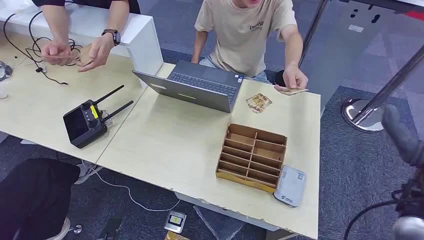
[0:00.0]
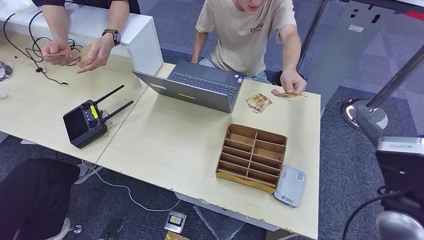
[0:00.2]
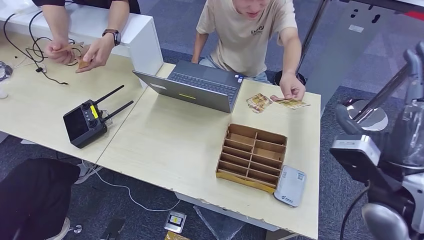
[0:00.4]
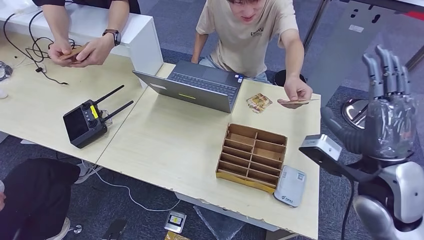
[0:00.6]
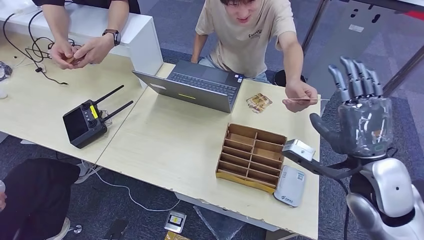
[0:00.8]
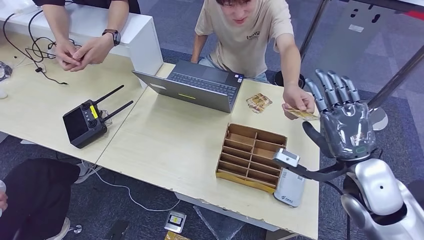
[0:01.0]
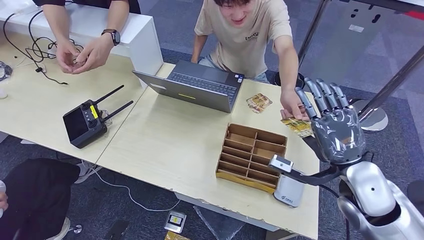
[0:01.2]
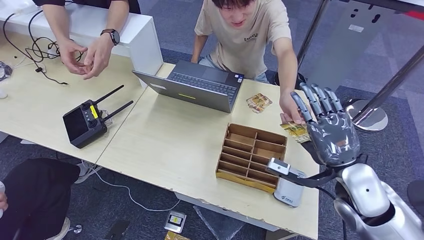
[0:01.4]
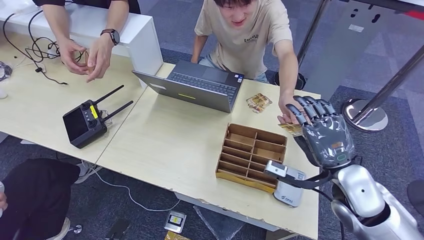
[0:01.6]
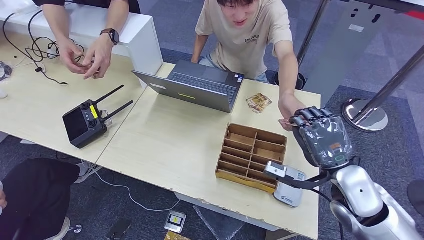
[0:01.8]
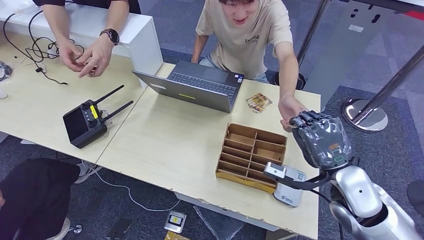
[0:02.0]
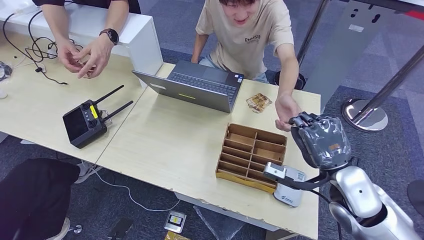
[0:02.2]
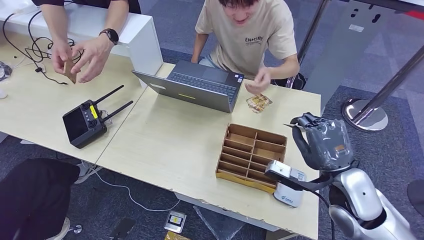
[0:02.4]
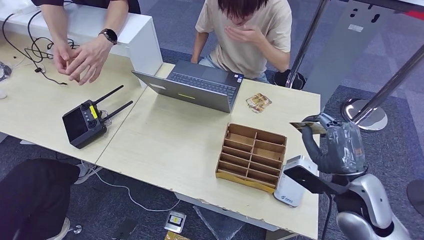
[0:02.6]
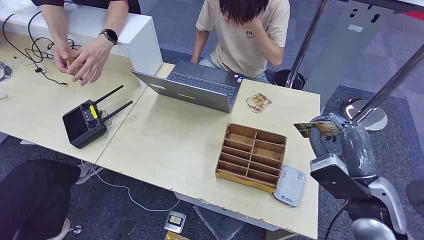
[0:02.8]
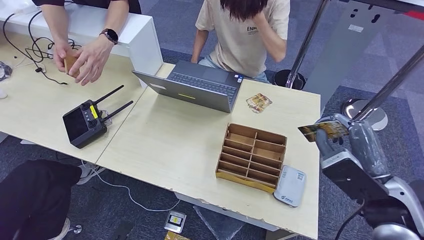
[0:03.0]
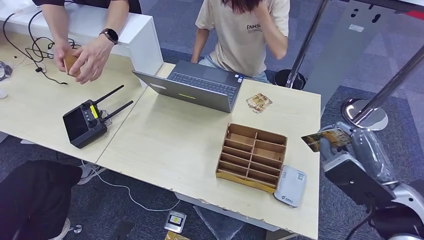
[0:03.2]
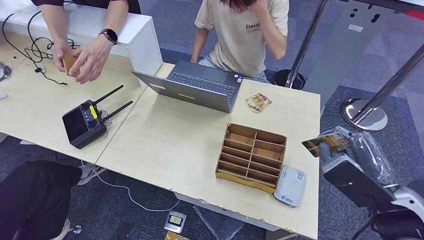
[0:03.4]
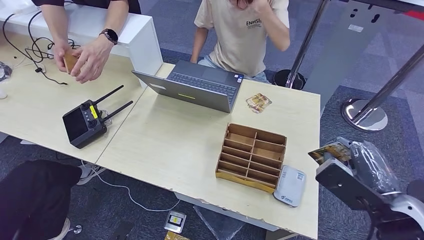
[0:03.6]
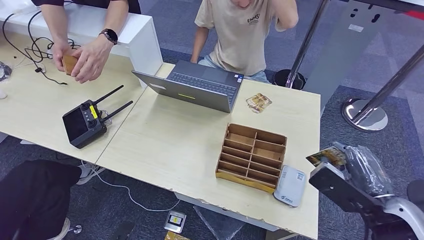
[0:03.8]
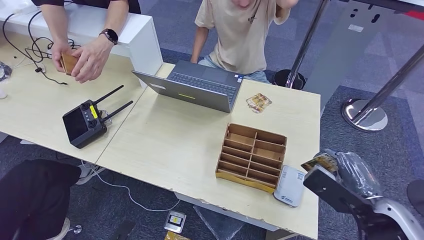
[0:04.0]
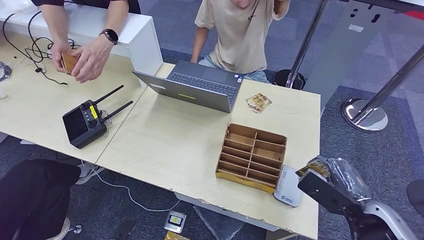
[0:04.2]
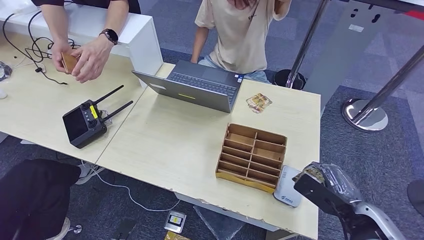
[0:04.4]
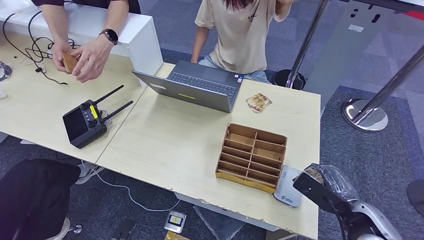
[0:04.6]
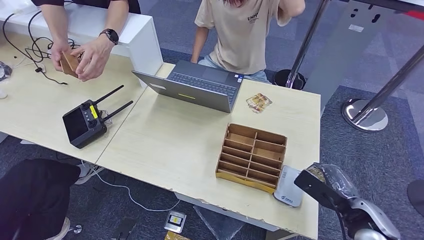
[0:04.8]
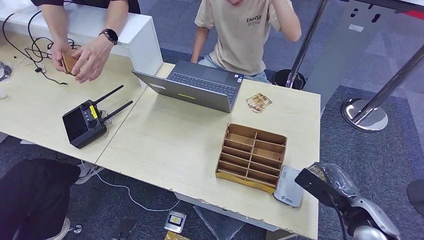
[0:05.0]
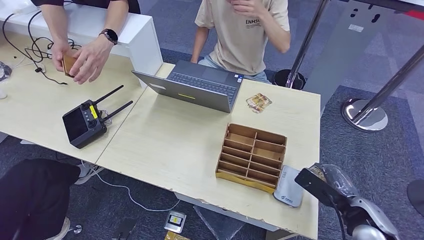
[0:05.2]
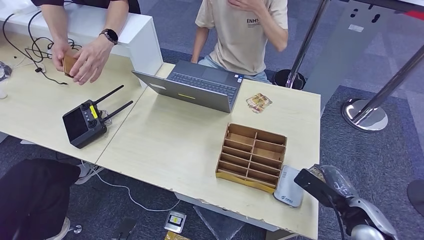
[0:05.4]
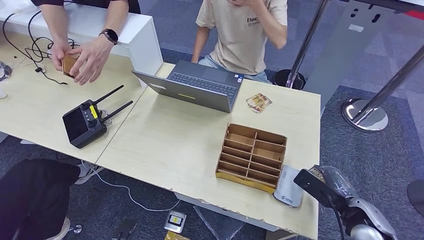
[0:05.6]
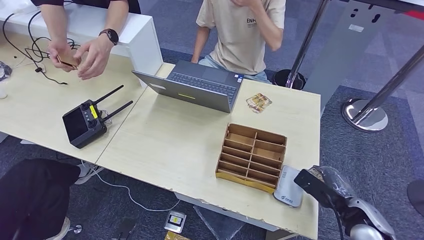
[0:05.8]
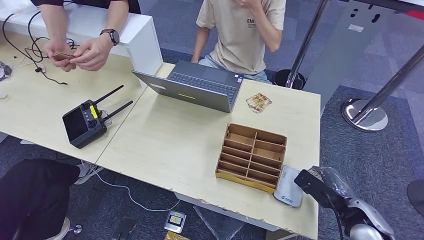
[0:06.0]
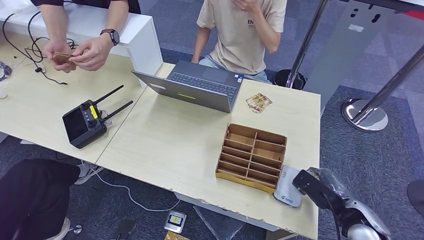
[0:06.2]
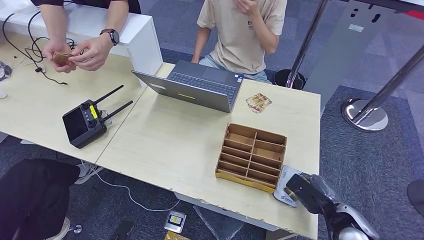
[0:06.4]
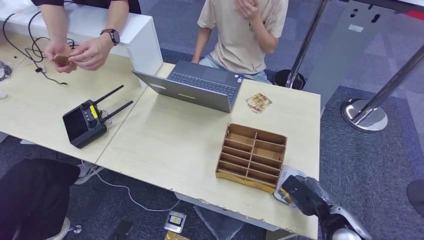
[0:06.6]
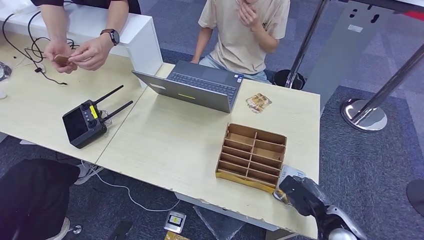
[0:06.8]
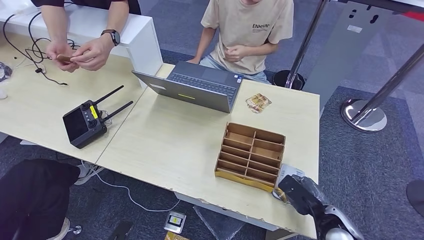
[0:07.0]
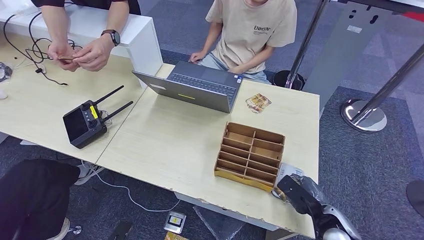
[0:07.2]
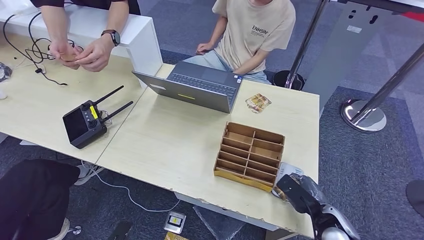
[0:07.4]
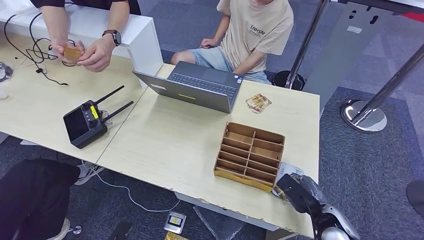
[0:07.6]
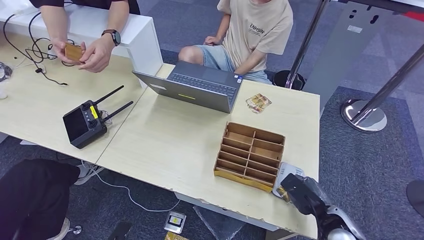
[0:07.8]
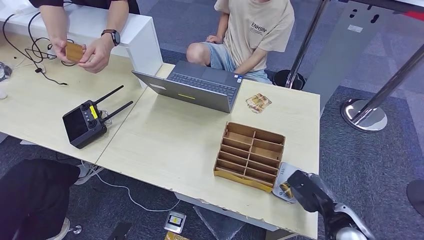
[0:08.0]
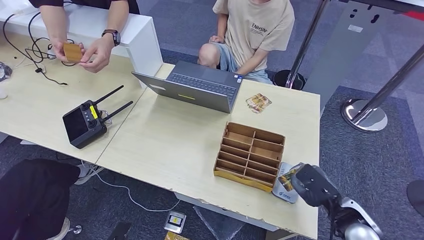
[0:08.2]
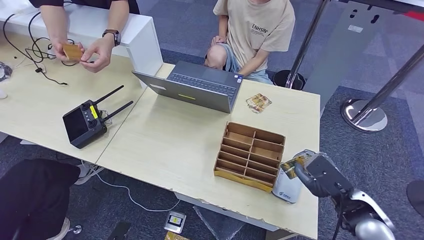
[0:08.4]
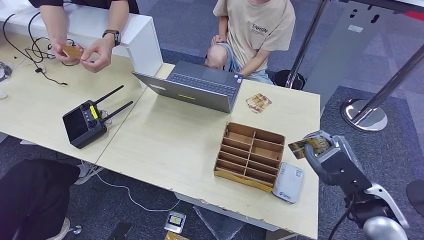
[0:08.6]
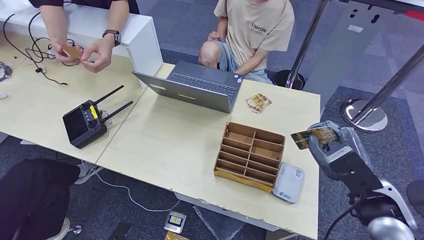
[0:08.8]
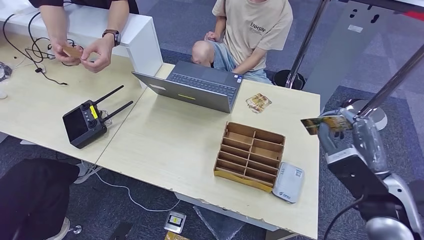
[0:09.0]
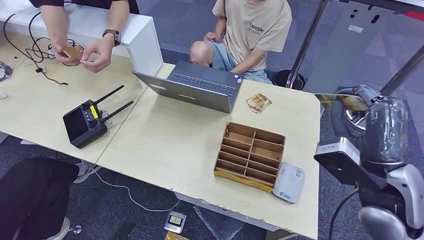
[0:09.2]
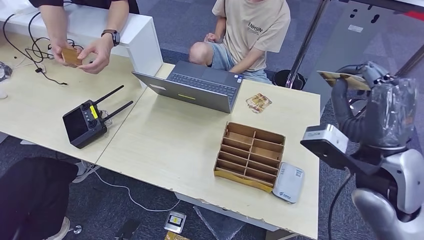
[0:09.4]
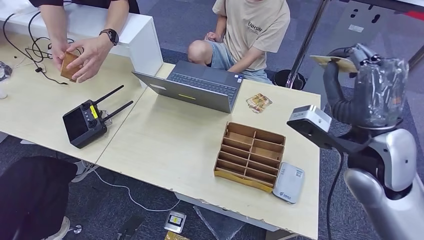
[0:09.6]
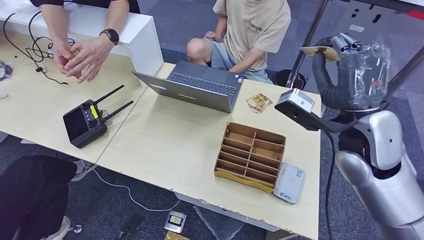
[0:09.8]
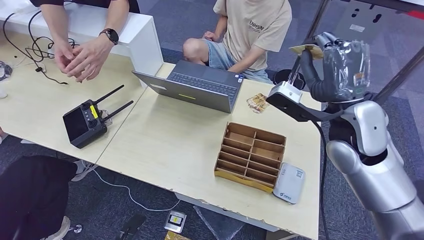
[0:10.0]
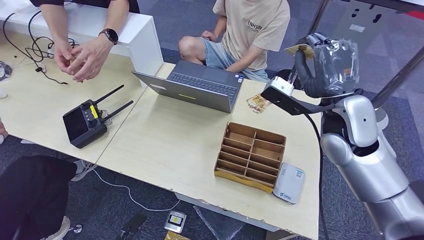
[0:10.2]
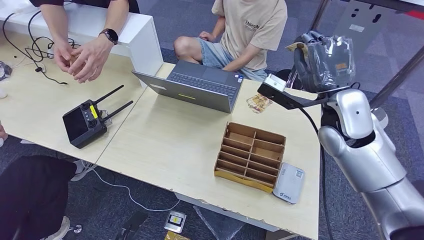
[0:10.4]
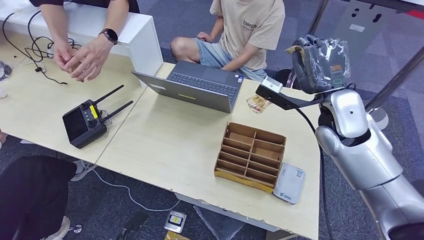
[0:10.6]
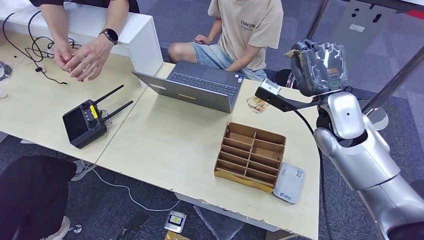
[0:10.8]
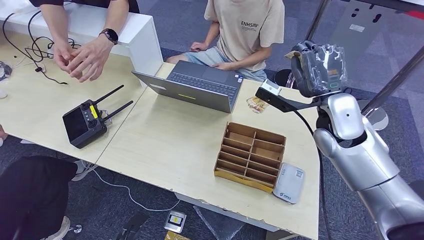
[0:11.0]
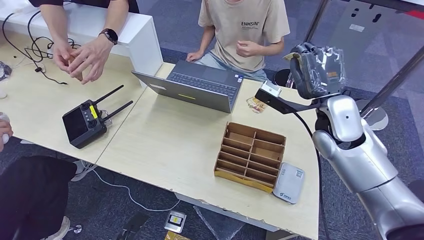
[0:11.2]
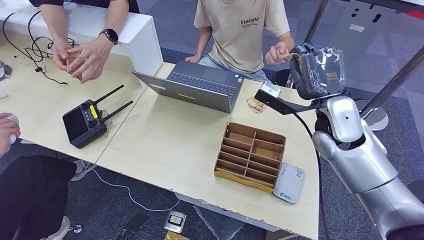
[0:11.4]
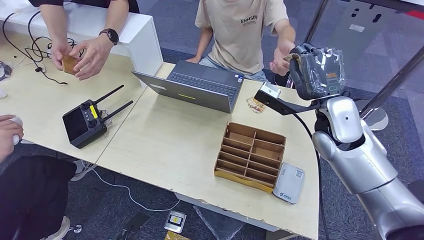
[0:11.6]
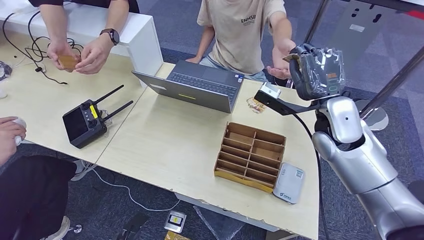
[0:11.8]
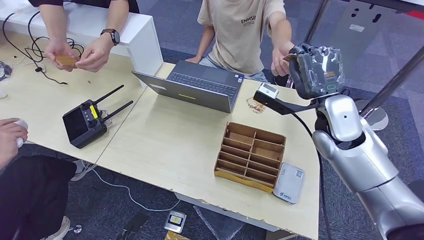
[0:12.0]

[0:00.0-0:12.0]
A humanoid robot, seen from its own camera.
Step, 0:00.0 to 0:02.2: Take the ID card from the person's hand.
Step, 0:02.6 to 0:06.4: Place the ID card on the card reader.
0:01.6 to 0:03.0: The right hand ends up roughly 5 cm from where it was.
0:03.0 to 0:04.4: The right hand moves downward, some 10 cm.
0:04.4 to 0:06.0: The right hand is displaced downward by approximately 5 cm.
0:06.0 to 0:07.6: The right hand heads downward, covering some 5 cm.
0:07.6 to 0:09.0: The right hand is displaced upward by roughly 20 cm.
0:09.0 to 0:10.4: The right hand is displaced forward and upward by about 15 cm.
0:10.4 to 0:12.0: The hands make only small movements.

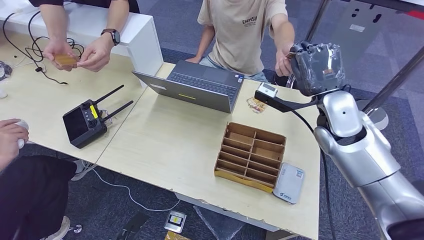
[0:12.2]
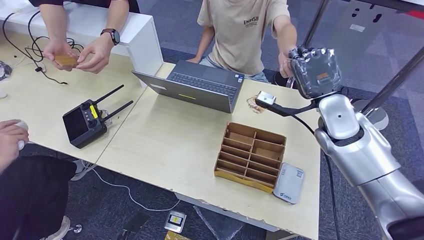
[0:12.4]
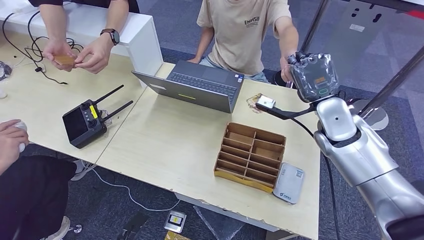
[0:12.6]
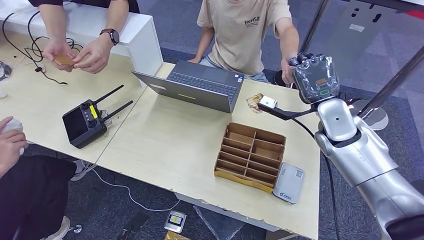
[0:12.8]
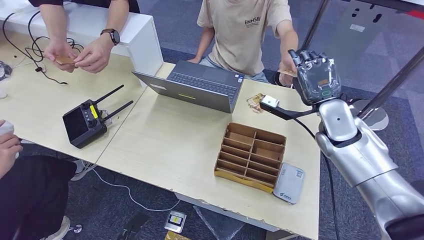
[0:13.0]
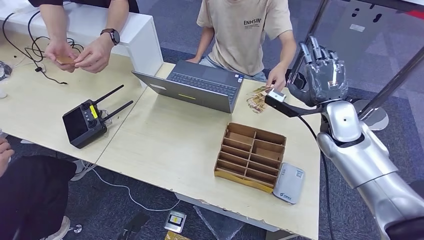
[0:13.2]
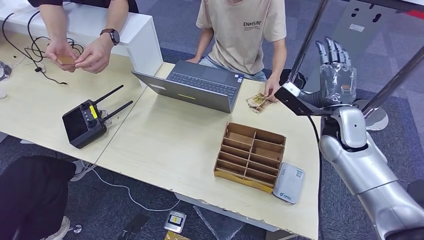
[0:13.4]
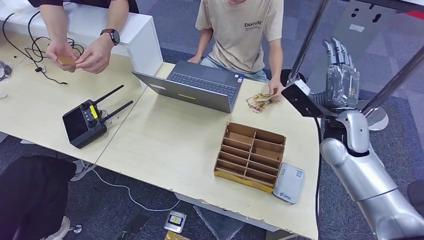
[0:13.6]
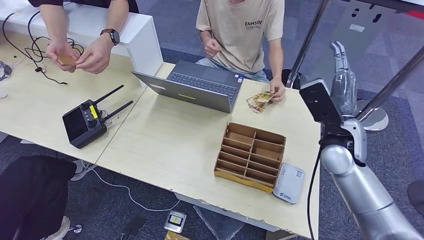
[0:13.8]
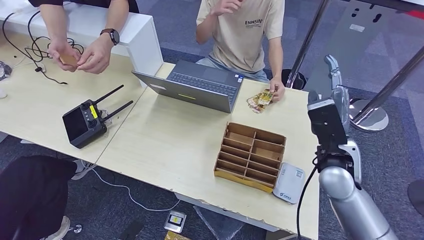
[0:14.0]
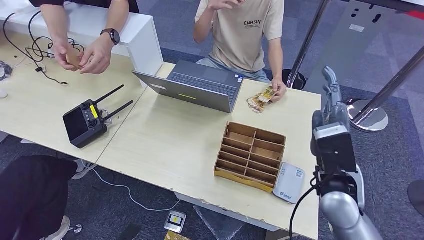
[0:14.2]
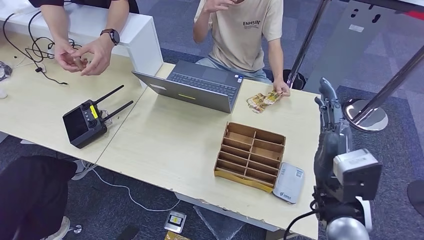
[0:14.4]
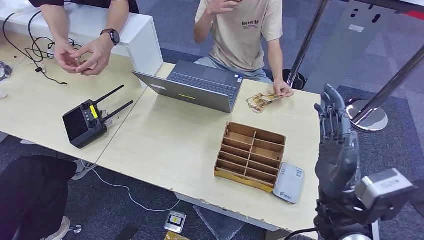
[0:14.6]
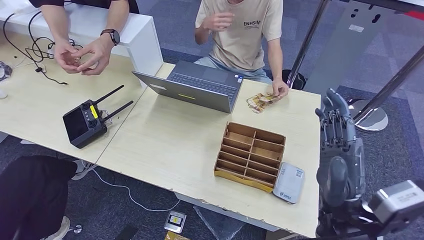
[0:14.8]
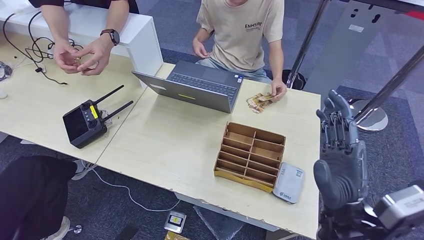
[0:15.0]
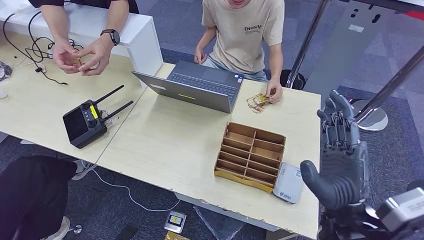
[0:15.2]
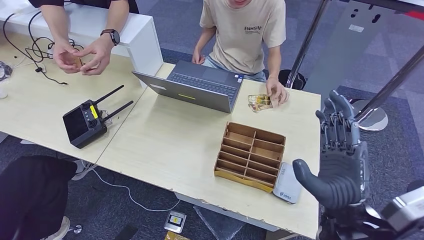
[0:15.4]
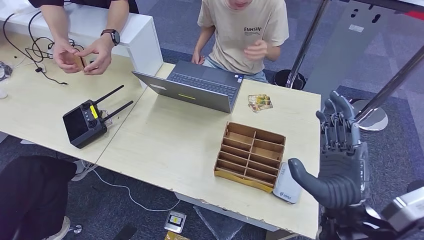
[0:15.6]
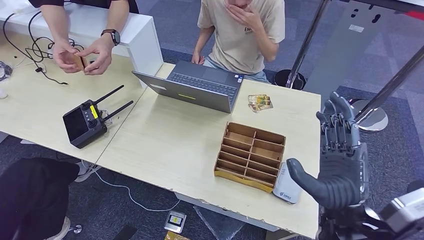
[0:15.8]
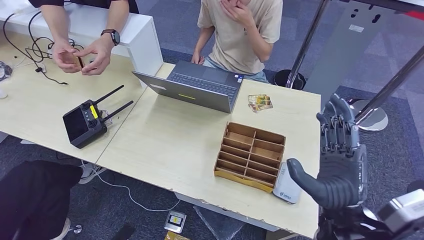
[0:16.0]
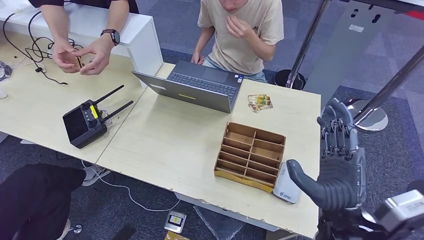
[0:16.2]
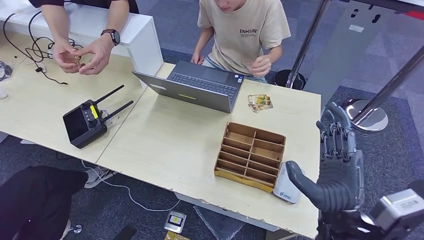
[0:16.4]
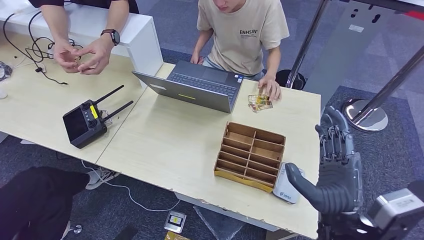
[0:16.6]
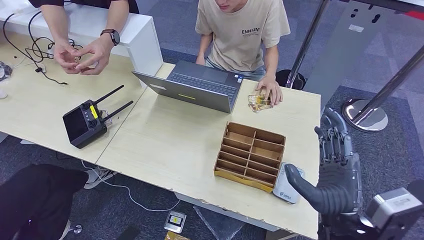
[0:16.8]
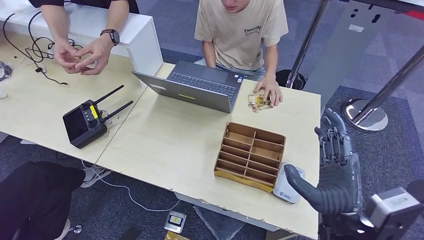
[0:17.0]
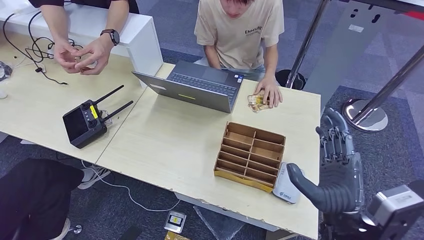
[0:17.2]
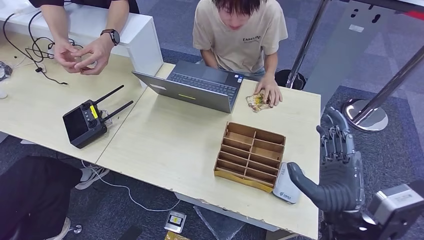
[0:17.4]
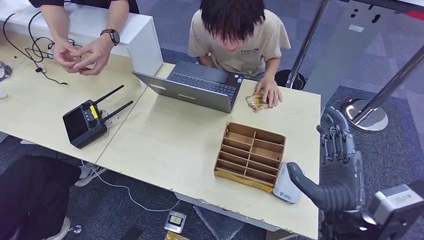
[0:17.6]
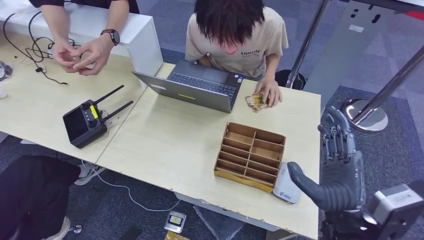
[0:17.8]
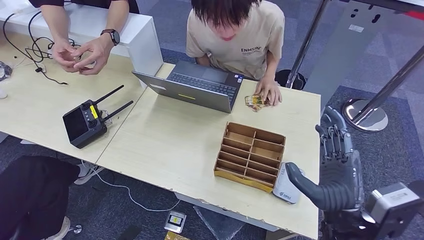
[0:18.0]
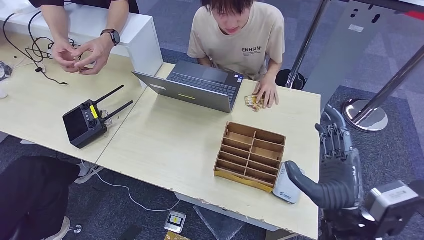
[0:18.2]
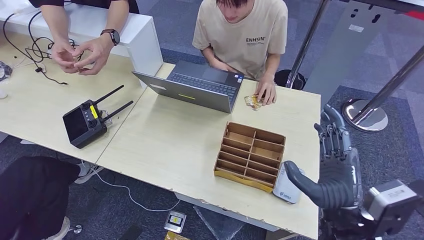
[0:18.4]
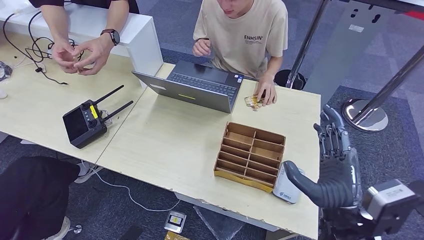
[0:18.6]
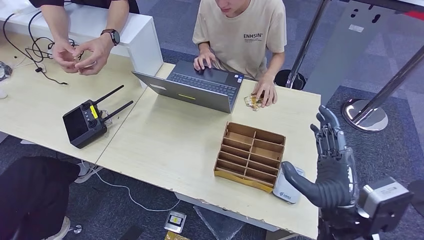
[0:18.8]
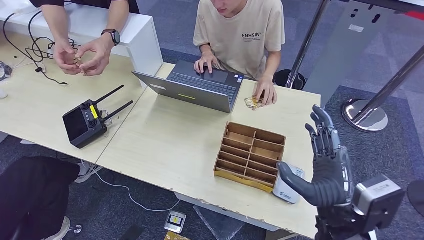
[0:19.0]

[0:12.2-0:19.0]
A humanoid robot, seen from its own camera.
0:12.2 to 0:13.6: The right hand travels downward by some 5 cm.
0:13.6 to 0:15.0: The right hand shifts approximately 20 cm backward and to the left.
0:15.0 to 0:17.6: The hands stay close to where they were, moving slightly.
0:17.6 to 0:19.0: Both hands stay put.
